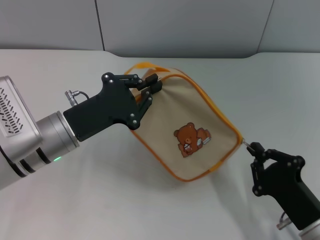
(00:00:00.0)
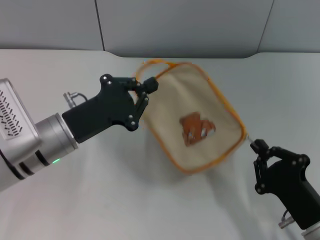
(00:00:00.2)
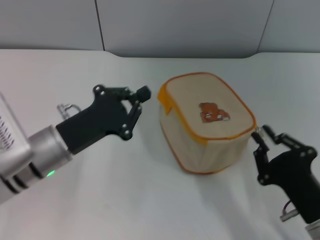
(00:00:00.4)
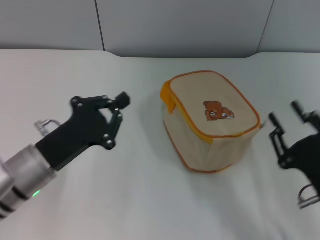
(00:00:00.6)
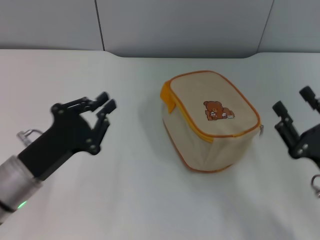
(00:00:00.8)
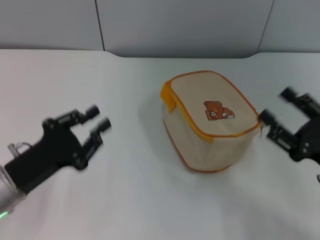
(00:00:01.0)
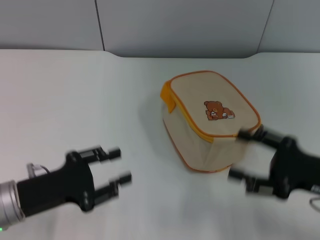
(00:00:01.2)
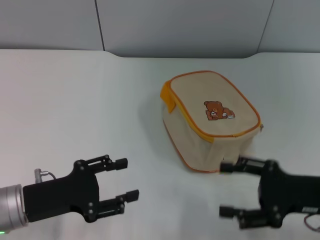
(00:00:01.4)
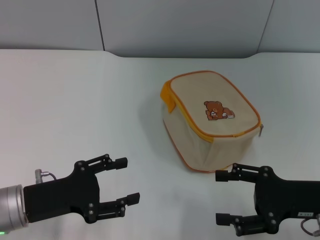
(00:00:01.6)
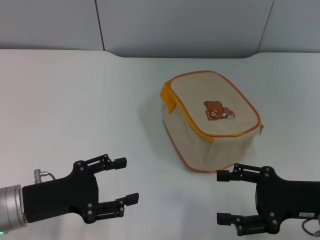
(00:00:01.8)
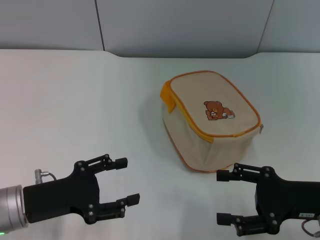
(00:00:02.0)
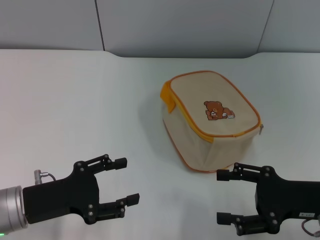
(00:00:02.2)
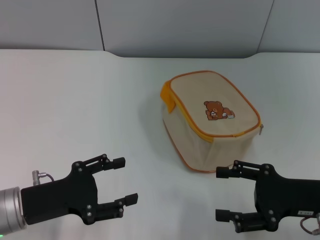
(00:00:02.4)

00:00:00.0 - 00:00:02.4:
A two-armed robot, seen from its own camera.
00:00:00.0 - 00:00:01.2: The right gripper travels upward, forward and to the right by about 10 cm, and opens. Meanwhile the left gripper heads backward and to the left, covering roughly 10 cm.
00:00:01.2 - 00:00:02.4: The left gripper opens its fingers.
